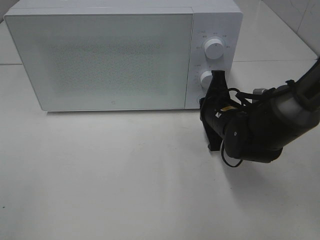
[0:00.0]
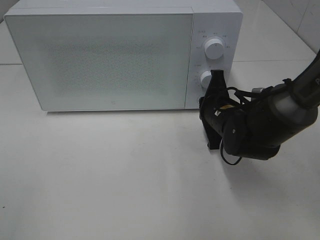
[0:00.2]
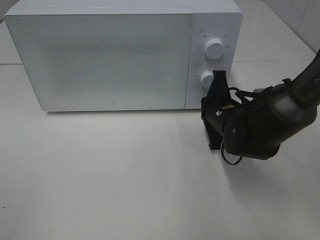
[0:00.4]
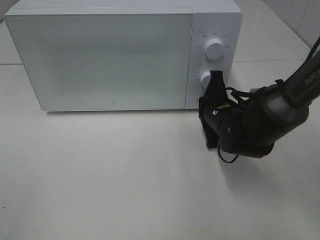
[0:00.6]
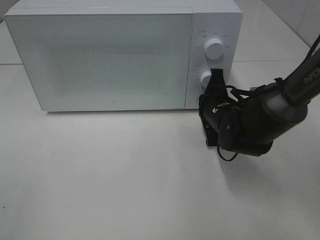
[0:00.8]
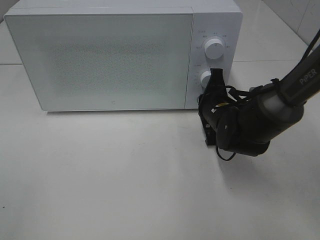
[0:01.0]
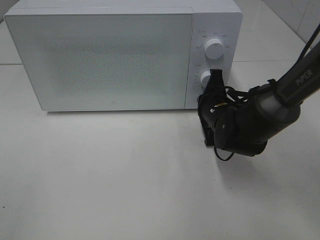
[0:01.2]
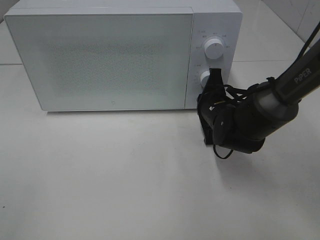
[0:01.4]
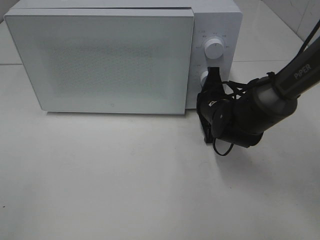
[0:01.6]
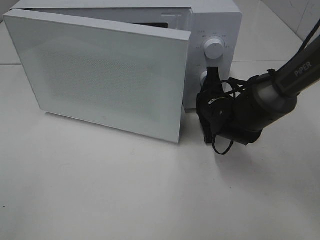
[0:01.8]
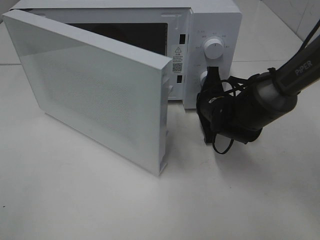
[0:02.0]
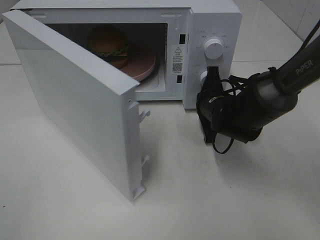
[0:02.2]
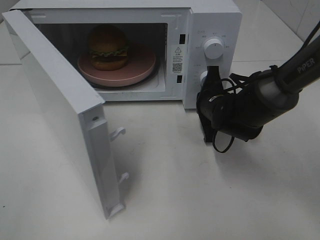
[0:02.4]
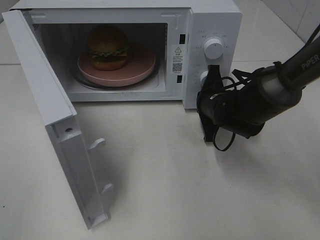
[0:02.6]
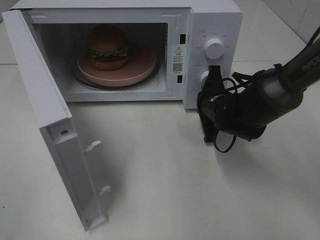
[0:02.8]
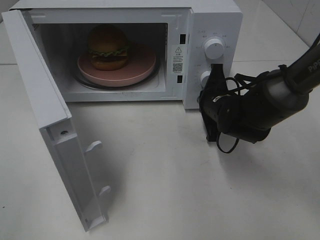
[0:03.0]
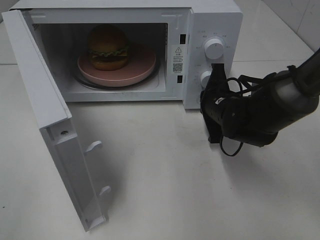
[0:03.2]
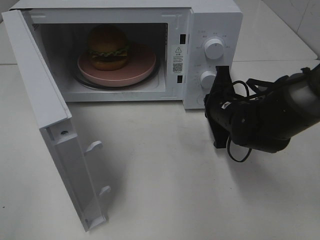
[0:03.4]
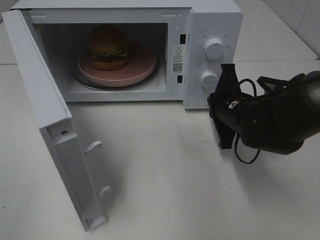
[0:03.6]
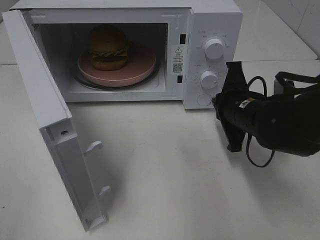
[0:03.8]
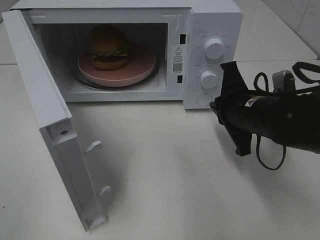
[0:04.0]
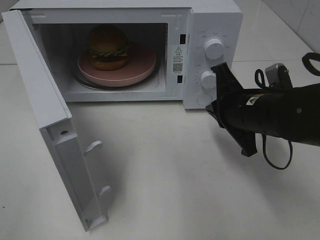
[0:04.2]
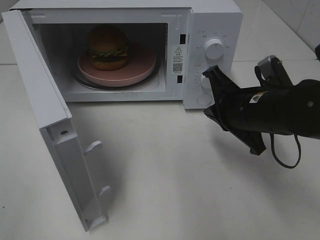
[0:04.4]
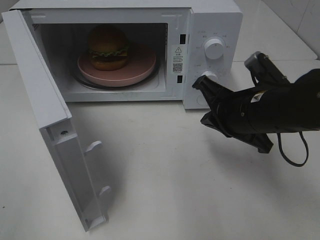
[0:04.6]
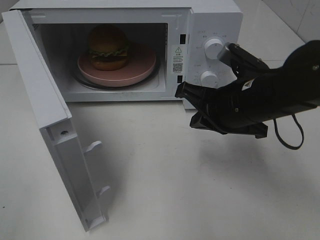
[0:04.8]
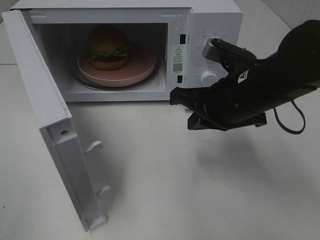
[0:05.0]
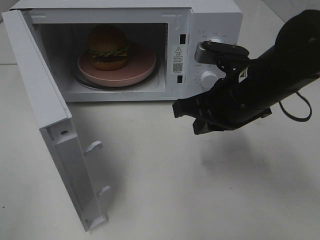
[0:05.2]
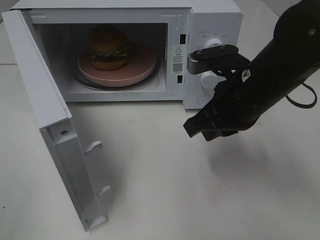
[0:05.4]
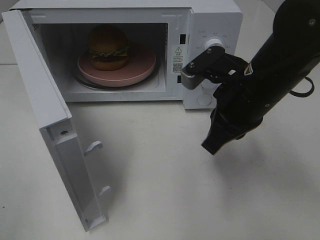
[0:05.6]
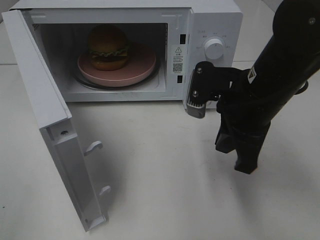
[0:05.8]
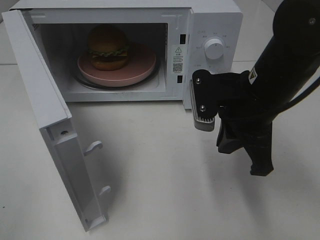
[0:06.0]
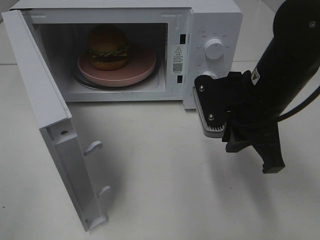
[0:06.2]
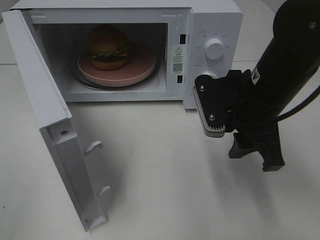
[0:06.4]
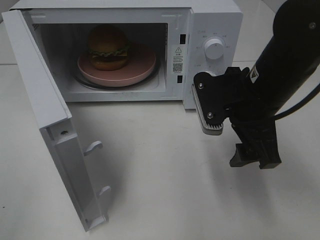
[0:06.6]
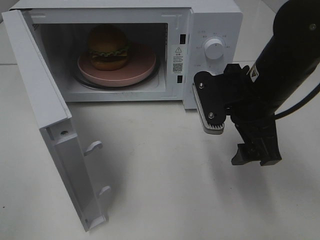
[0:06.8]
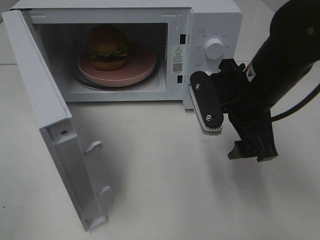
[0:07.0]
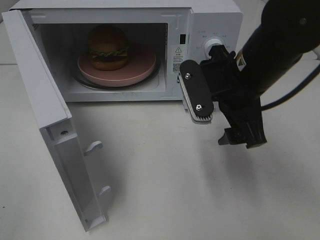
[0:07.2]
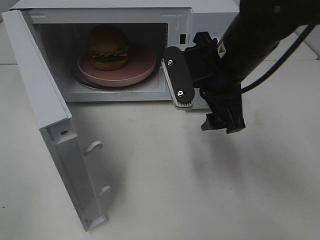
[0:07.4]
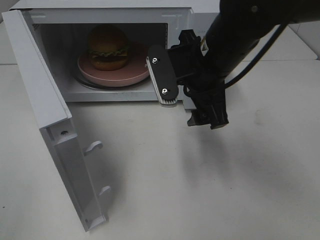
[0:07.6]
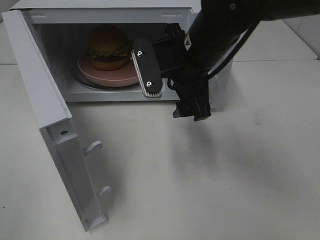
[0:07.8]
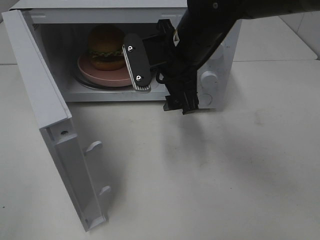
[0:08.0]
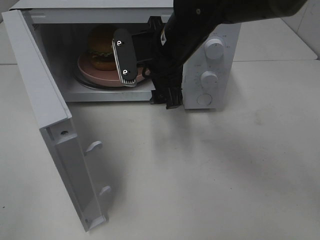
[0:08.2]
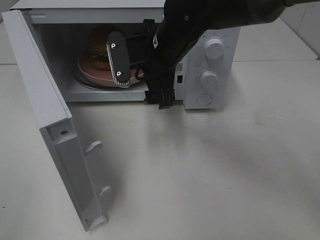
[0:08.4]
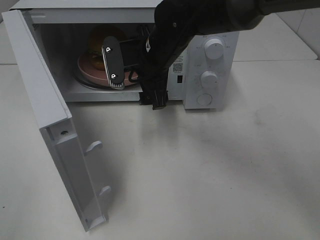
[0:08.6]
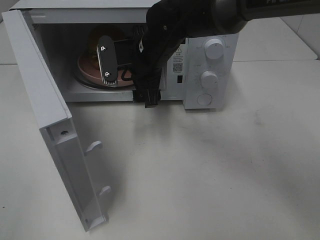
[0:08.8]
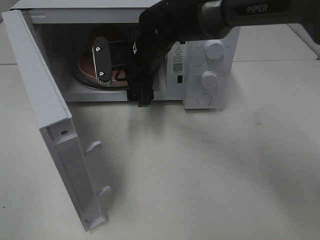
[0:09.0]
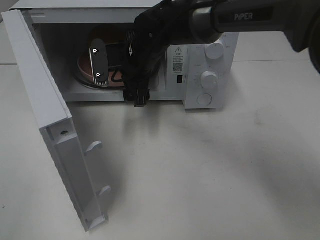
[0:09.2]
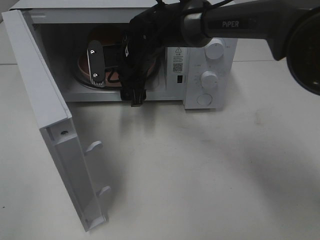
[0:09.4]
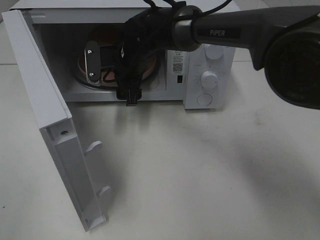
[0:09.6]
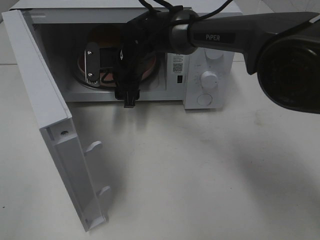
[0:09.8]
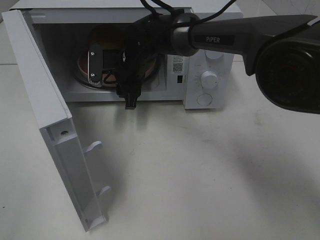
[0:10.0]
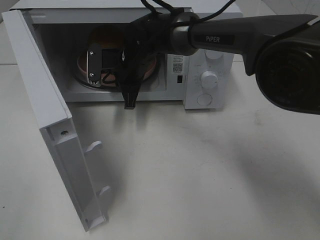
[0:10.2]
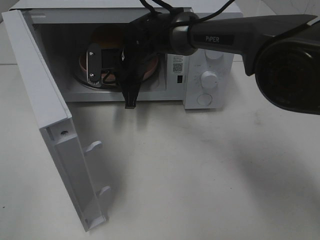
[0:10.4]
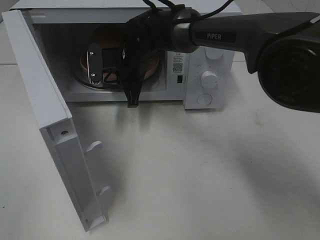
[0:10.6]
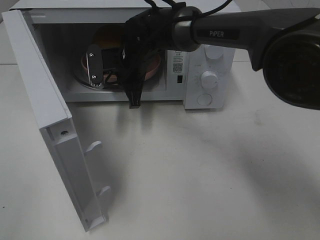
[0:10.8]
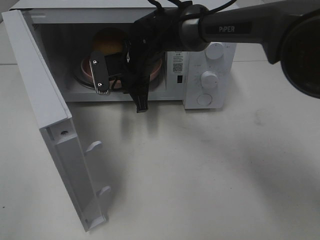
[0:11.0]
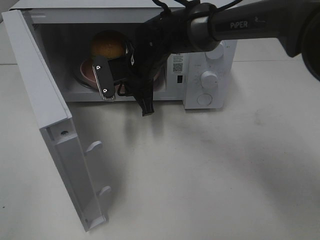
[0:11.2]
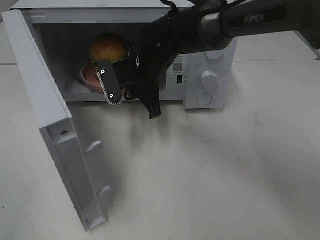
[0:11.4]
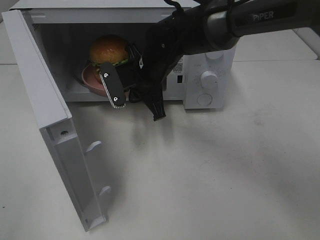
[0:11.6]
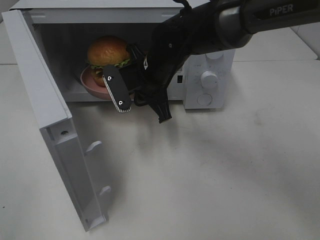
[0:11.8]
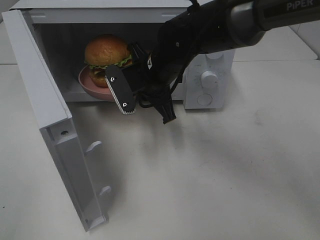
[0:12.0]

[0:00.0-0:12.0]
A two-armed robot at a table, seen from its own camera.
Task of the whole recording: Heat the burger.
Step, 0:00.0 to 0:03.6: Right hand: press the switch.
Step, 0:03.8 to 0:10.2: Right hand: grab the plate with the hamburger.
0:00.0 to 0:01.6: The grippers make only small movements.
0:03.0 to 0:04.4: The right gripper travels backward and upward by approximately 10 cm.
0:04.4 to 0:06.0: The right gripper changes place by roughly 5 cm.
0:06.0 to 0:07.6: The right gripper is displaced to the left by some 5 cm, and opens up.
0:07.6 to 0:09.0: The right gripper moves forward, to the left and downward, roughly 15 cm.
0:09.0 to 0:10.4: The right gripper ends up about 5 cm from where it was, and closes its fingers.
0:10.4 to 0:12.0: The right gripper heads backward and to the right, covering some 10 cm.

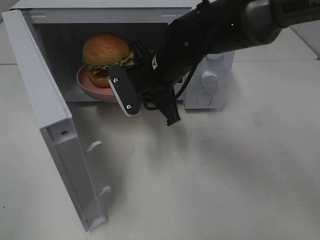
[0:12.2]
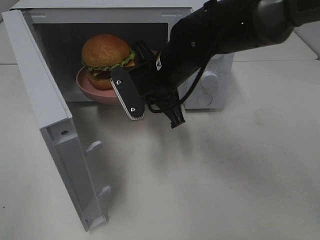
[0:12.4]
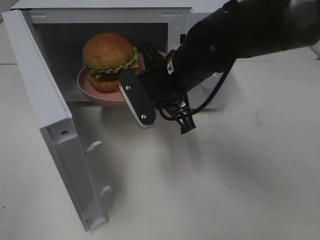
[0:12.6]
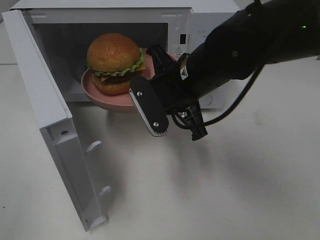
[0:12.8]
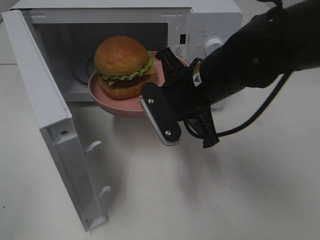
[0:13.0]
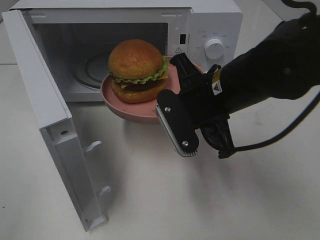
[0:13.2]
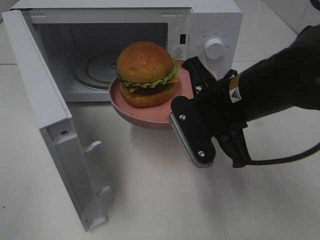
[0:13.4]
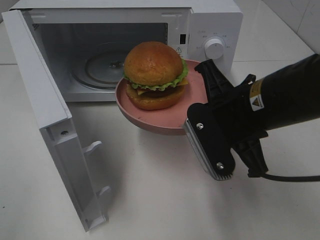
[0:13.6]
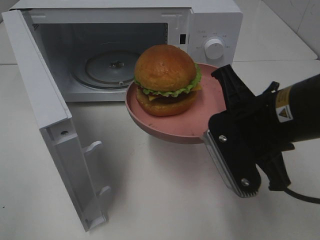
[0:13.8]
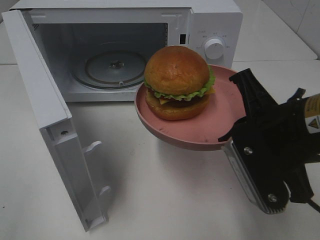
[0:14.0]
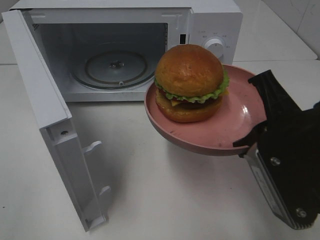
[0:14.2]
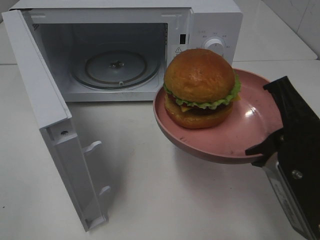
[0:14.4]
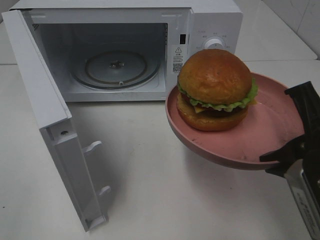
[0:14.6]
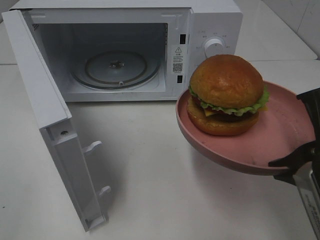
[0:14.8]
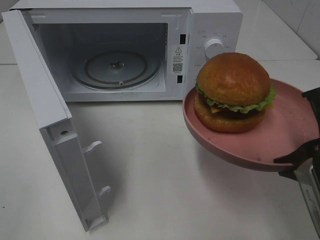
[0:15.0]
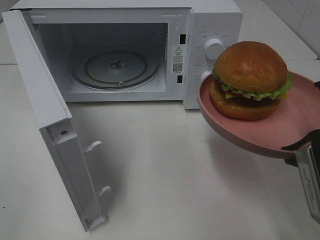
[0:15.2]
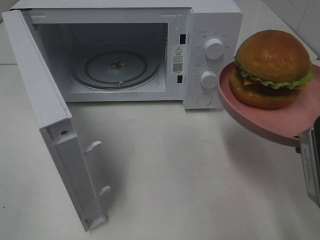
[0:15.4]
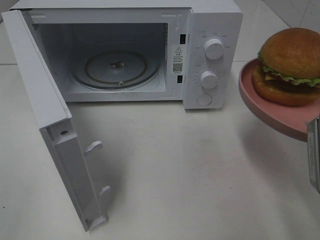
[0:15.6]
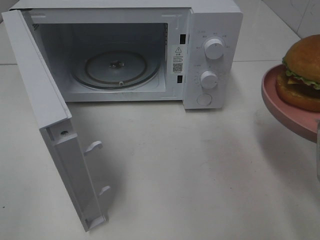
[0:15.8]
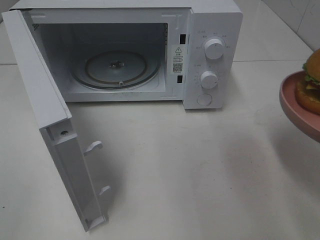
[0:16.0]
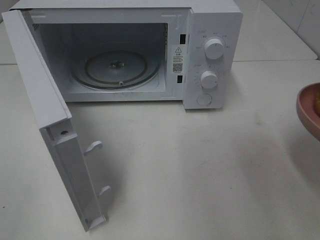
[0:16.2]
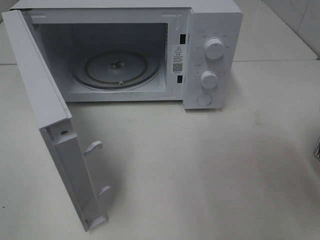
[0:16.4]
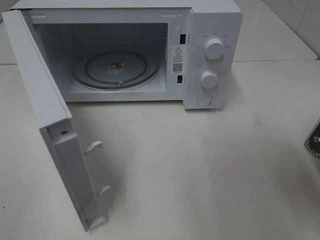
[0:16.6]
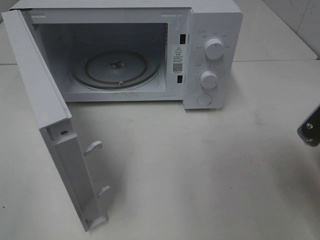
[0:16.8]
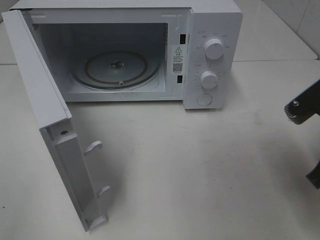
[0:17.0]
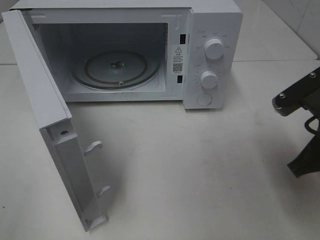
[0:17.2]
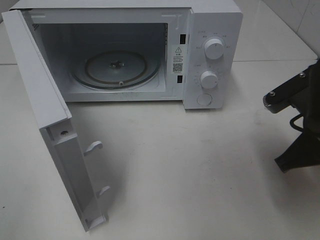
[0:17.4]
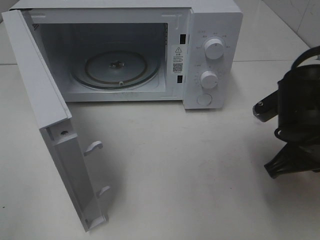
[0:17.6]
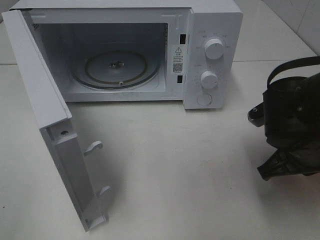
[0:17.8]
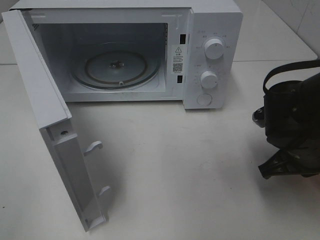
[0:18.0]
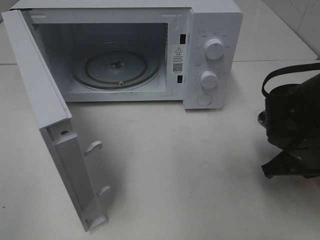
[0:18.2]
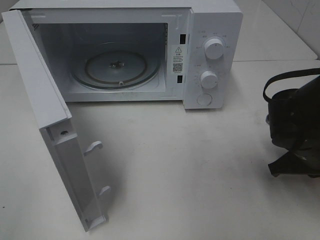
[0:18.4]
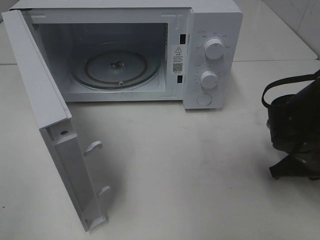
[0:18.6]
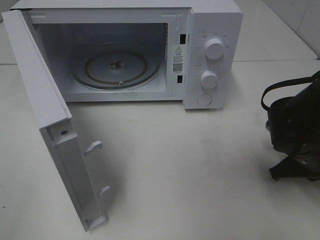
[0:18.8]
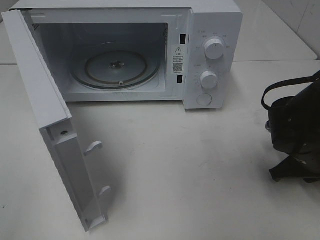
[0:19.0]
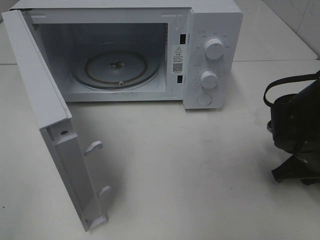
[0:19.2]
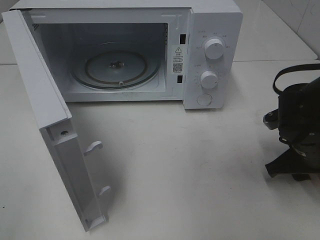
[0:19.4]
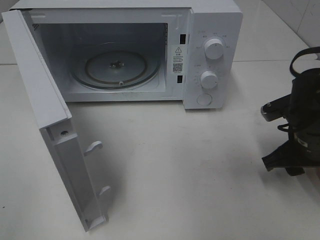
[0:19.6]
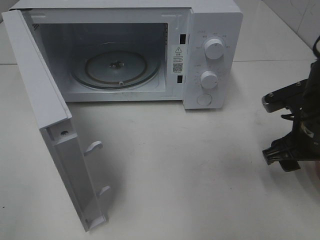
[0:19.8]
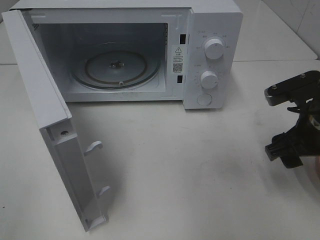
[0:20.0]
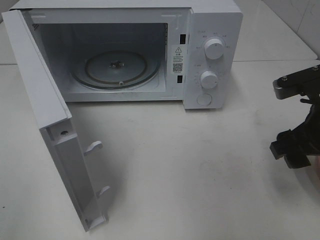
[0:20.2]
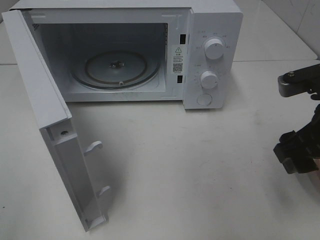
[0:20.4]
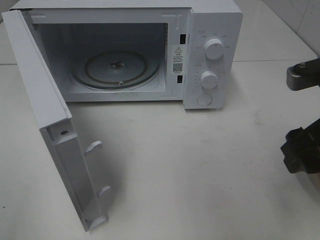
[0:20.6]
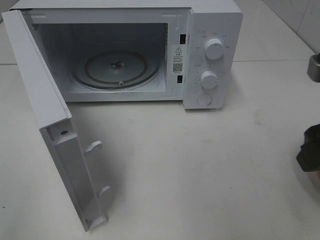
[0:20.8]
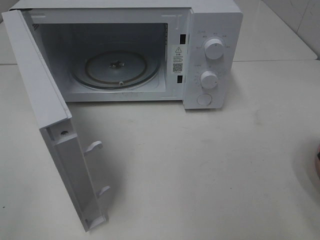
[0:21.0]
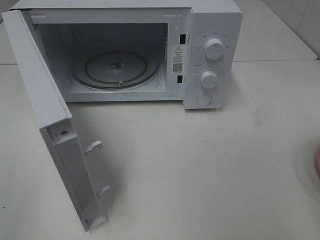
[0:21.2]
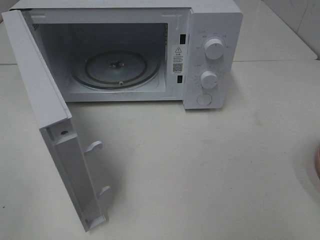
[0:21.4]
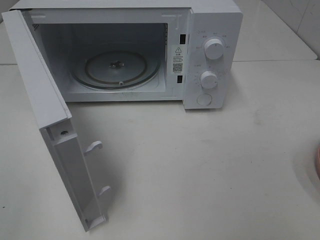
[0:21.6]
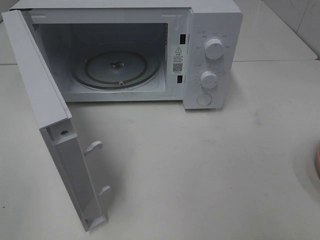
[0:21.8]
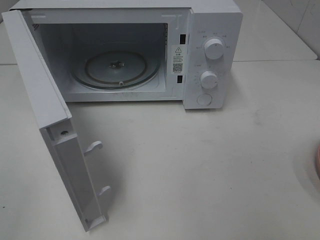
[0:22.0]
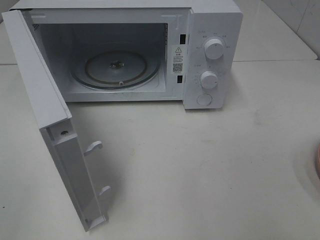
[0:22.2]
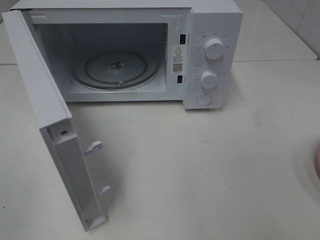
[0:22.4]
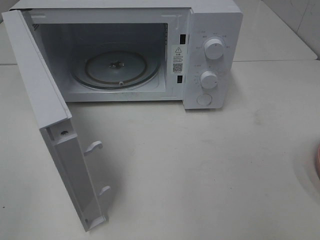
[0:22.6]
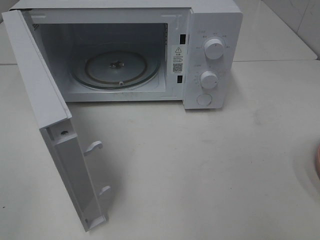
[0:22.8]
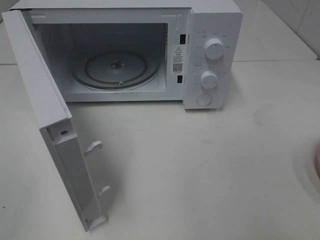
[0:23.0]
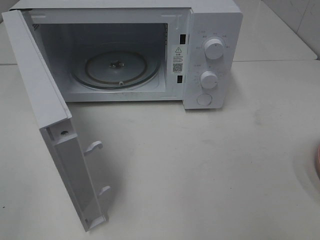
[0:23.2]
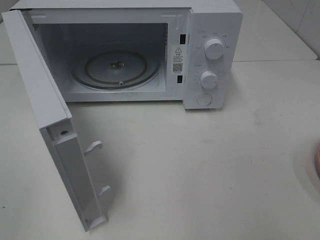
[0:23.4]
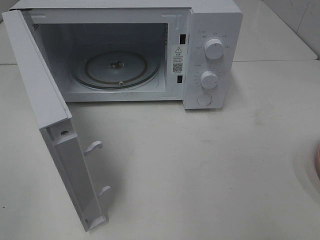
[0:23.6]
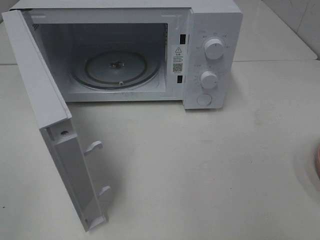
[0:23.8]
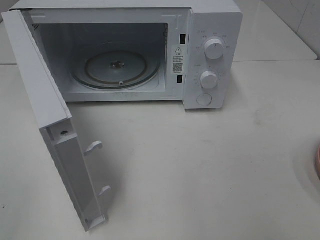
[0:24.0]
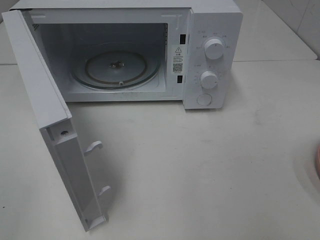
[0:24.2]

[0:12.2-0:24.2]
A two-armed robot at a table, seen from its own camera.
Task of the whole recording: Heat the burger.
Step, 0:12.2 to 0:19.4: Right hand: place the plate on the table.
0:12.2 to 0:13.8: The right gripper moves backward and to the right, approximately 20 cm.
0:13.8 to 0:15.2: The right gripper is displaced to the right and backward by approximately 10 cm.
0:16.6 to 0:18.2: The right gripper goes some 15 cm forward and downward.
0:18.2 to 0:19.8: The right gripper opens up.
0:19.8 to 0:21.2: The right gripper shifts roughly 20 cm upward and backward.
0:22.6 to 0:24.2: Both grippers stay about where they are.
